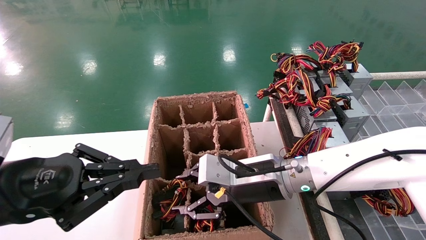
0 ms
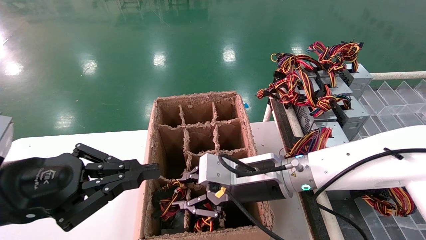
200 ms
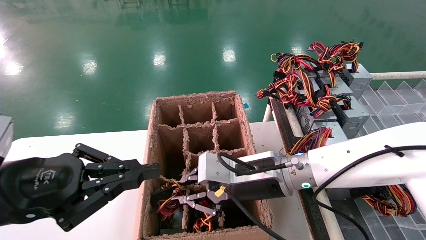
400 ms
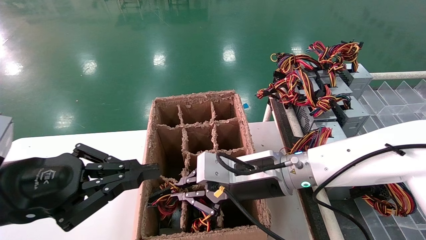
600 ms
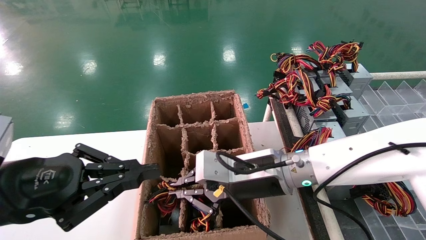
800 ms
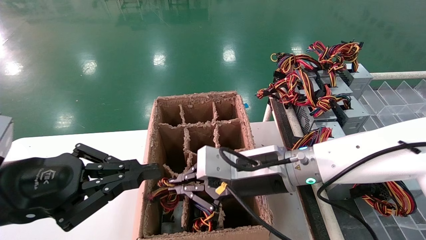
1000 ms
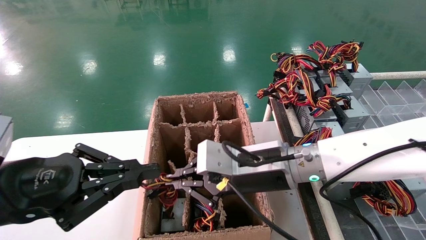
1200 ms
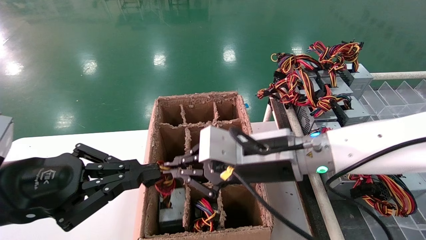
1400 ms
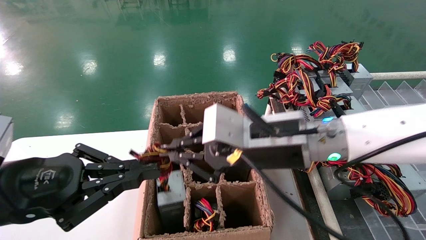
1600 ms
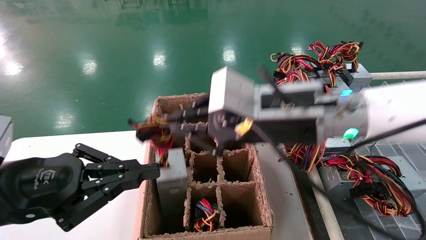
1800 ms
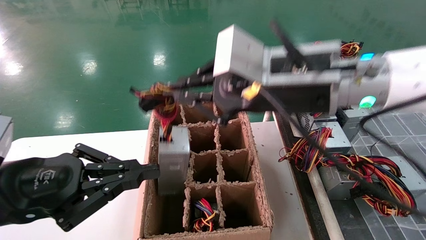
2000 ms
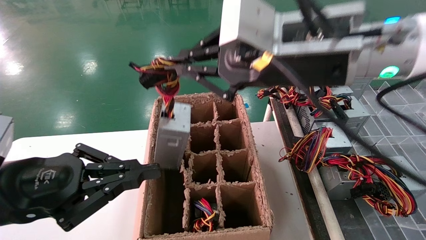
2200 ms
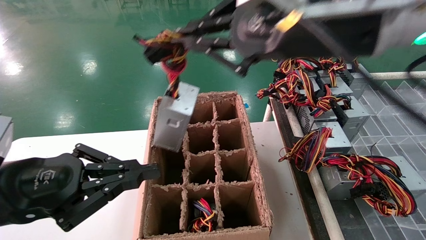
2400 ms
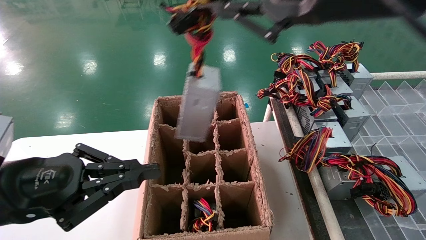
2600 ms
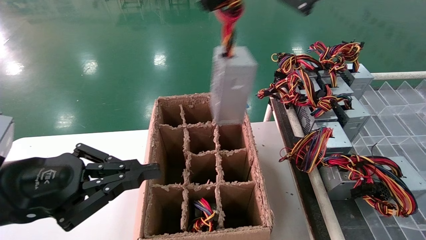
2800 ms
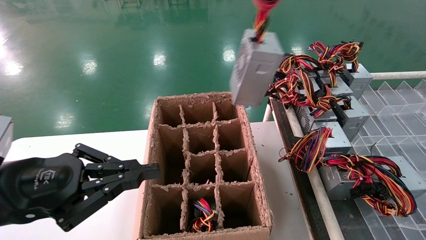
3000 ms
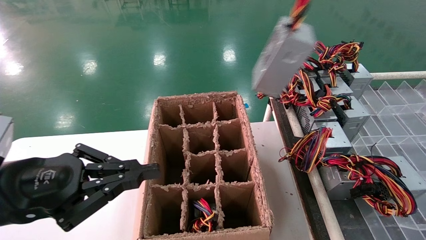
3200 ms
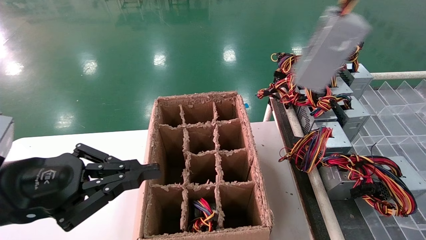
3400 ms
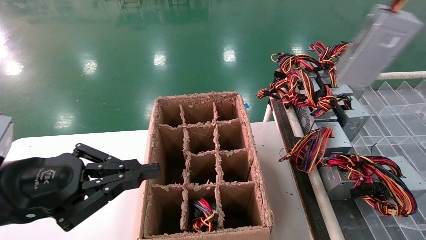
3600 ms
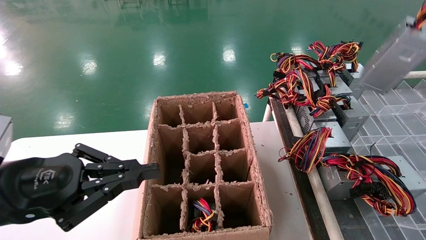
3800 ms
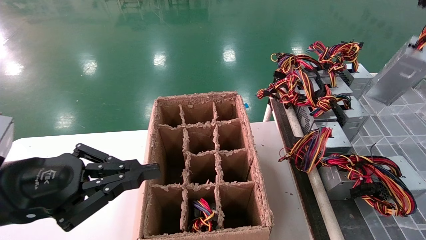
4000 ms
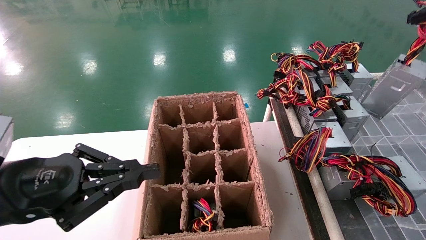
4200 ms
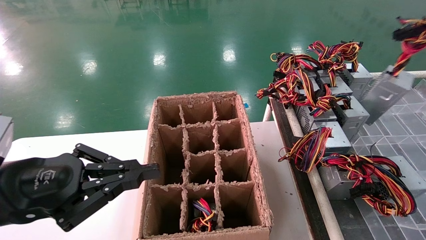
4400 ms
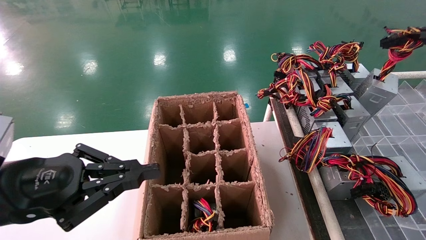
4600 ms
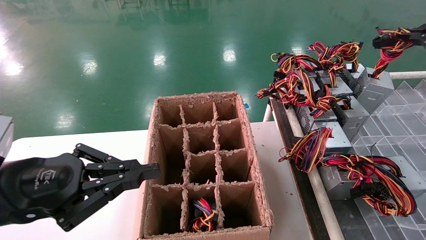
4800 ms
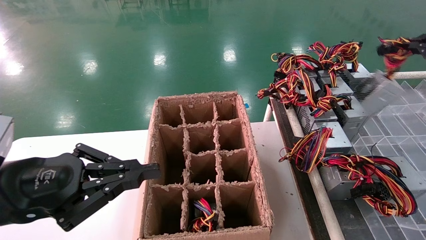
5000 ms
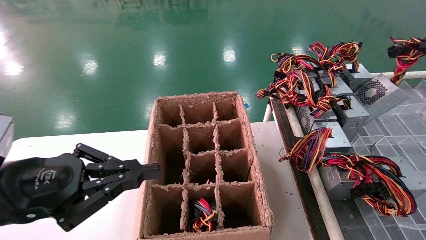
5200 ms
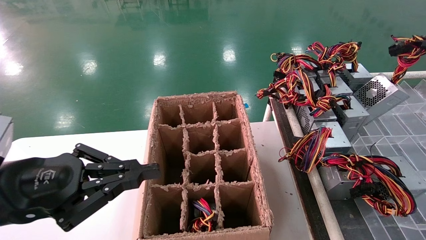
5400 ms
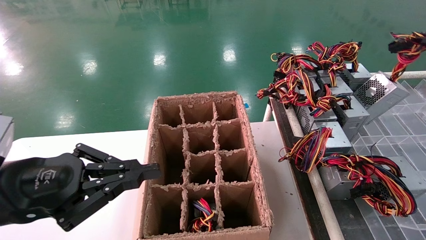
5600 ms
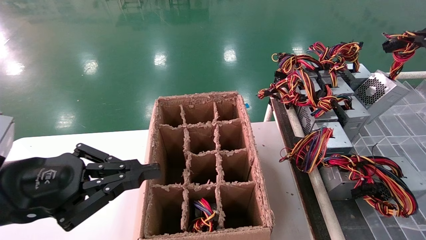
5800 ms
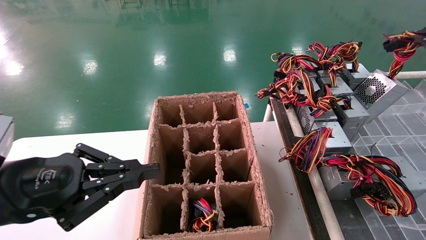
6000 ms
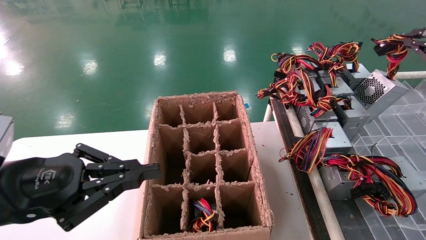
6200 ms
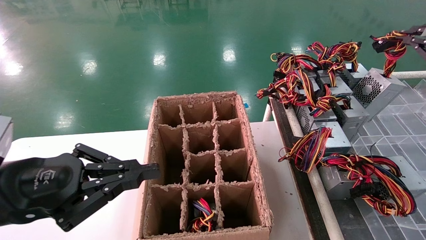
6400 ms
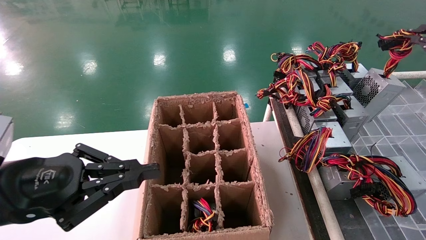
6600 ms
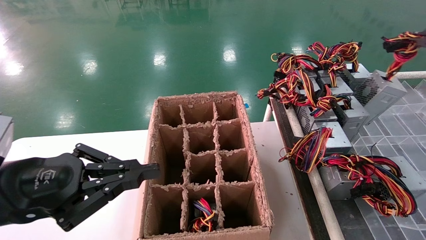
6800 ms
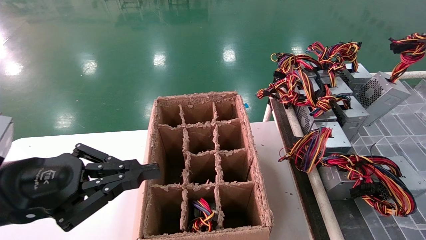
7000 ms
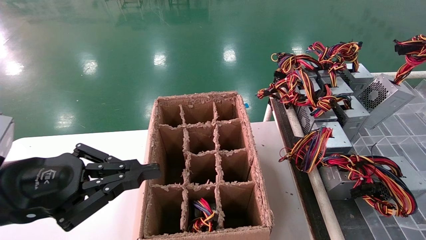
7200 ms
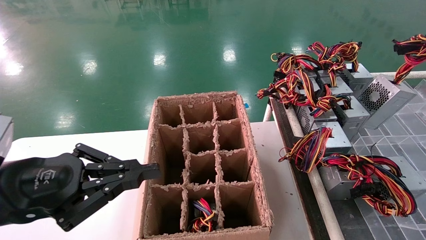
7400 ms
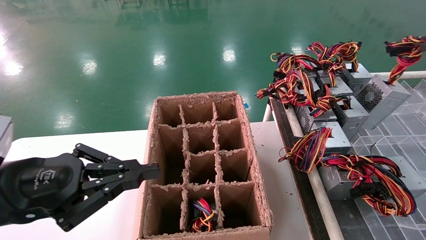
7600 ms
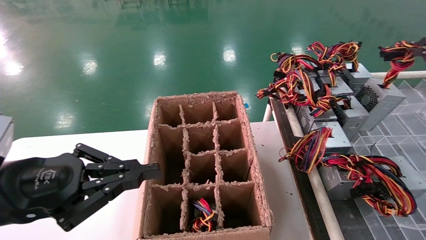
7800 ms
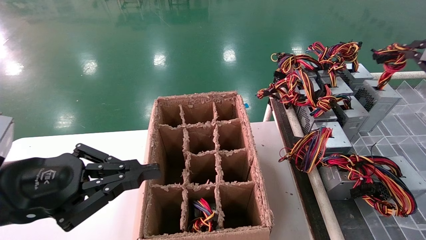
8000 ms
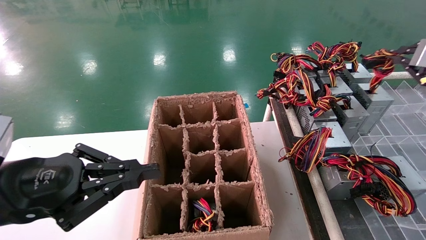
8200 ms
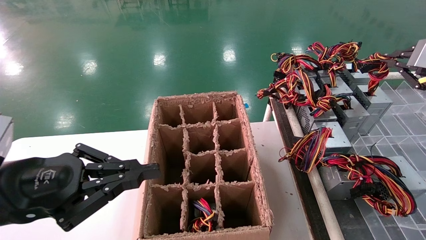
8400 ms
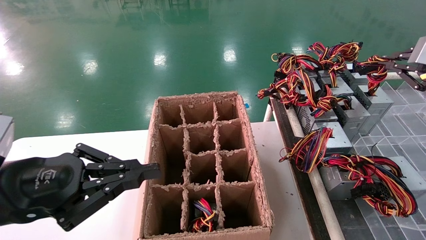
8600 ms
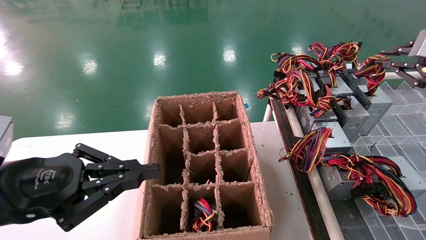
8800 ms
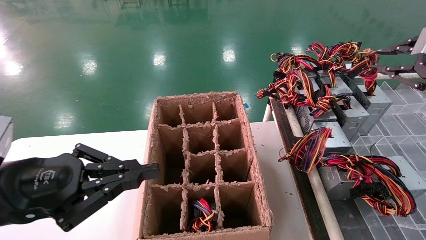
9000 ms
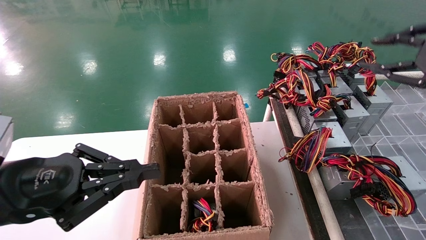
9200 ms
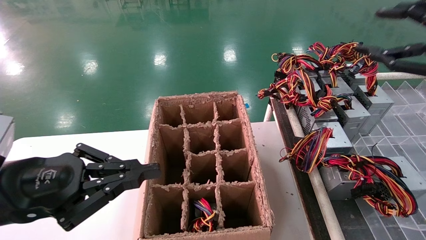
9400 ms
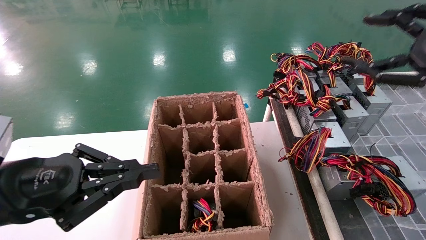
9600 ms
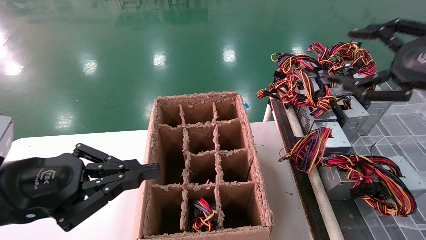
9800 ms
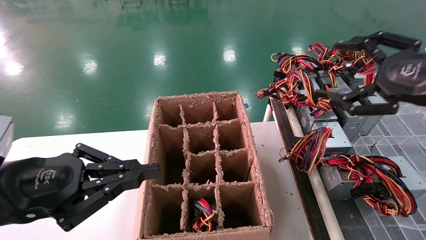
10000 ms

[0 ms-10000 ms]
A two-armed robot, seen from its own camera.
Step, 1000 ms to 9200 ms: Place the main unit power supply in the designated area.
0 ms to 1400 ms: The right gripper shifts about 5 cm upward, and closes its fingers.
1400 ms to 2800 ms: The right gripper shifts roughly 25 cm upward and to the right.
2800 ms to 4200 ms: The right gripper goes about 30 cm to the right.
4200 ms to 5800 ms: The right gripper moves forward, approximately 10 cm.
5800 ms to 7200 ms: There are only small adjustments of the grippers.
7200 ms to 8600 ms: The grippers make only small movements.
8600 ms to 10000 ms: The right gripper is displaced to the left and backward by approximately 10 cm, and opens.

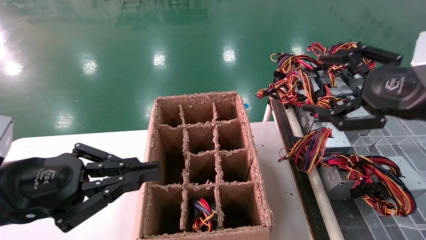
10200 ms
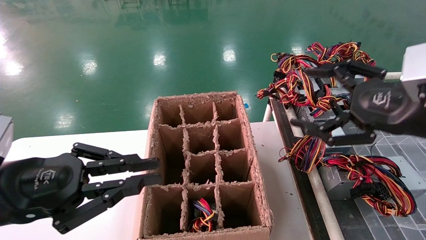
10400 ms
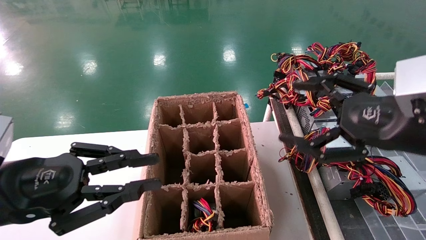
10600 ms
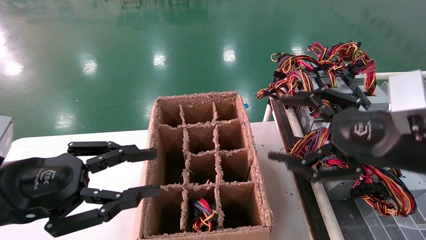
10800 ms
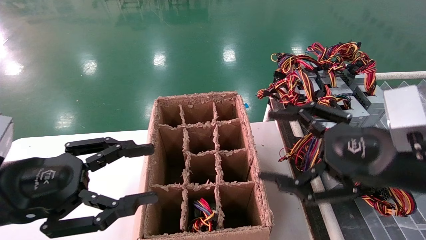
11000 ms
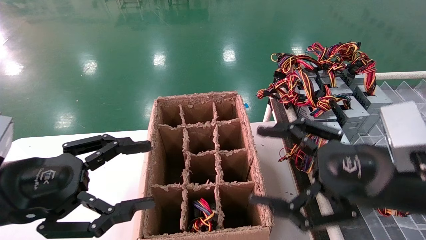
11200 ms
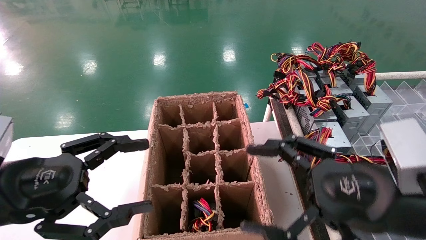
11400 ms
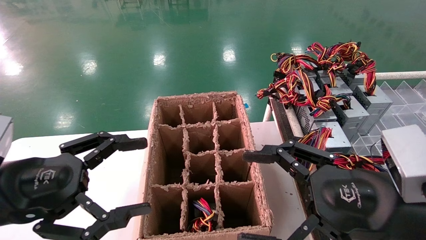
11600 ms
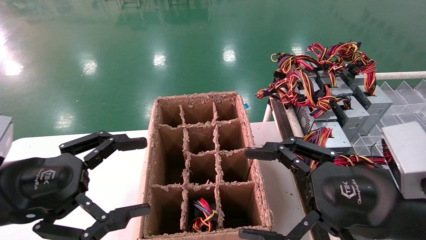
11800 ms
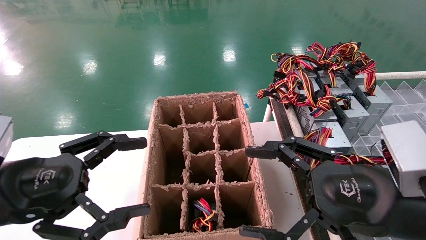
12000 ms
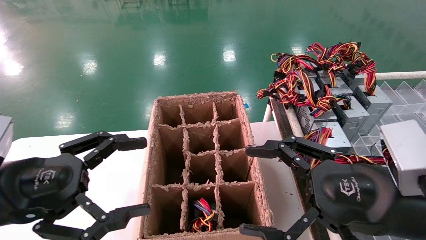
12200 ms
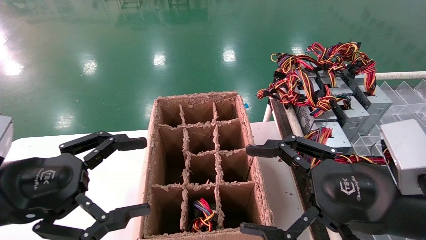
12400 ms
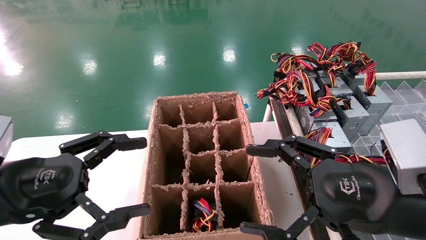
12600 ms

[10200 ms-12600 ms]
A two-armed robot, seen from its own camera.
10200 ms to 11400 ms: The left gripper opens, while the right gripper travels downward, to the left and backward by about 15 cm.
11400 ms to 12600 ms: Both grippers stay put.
